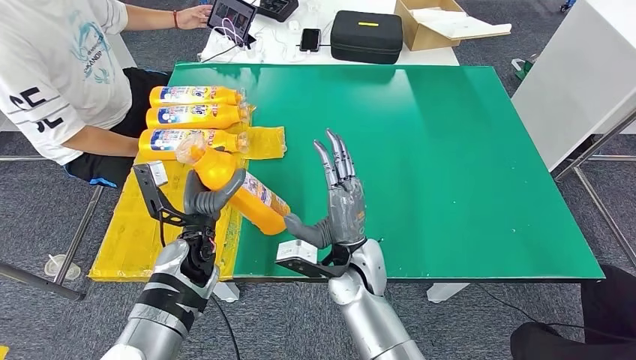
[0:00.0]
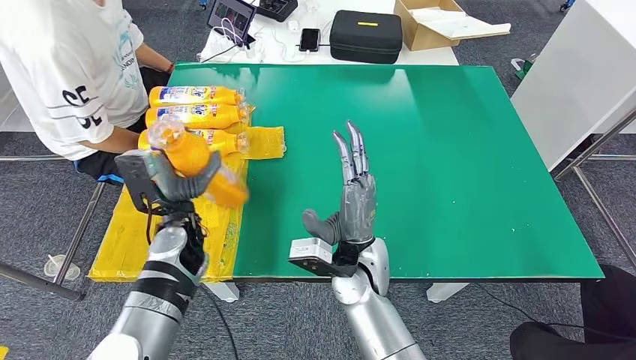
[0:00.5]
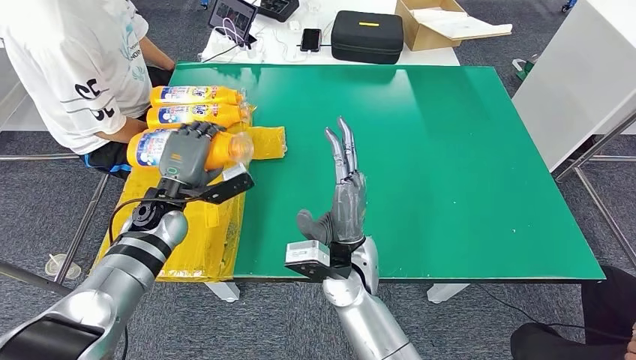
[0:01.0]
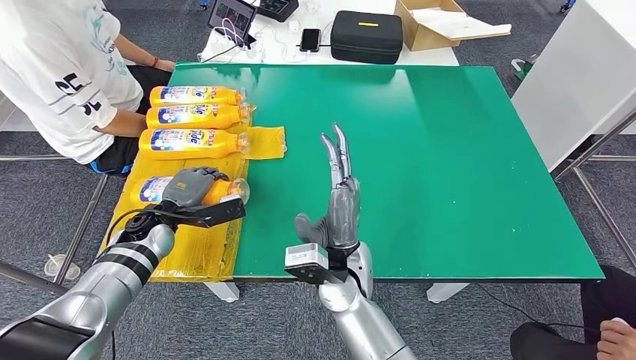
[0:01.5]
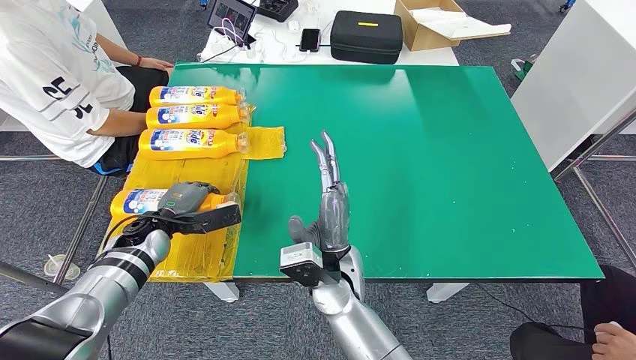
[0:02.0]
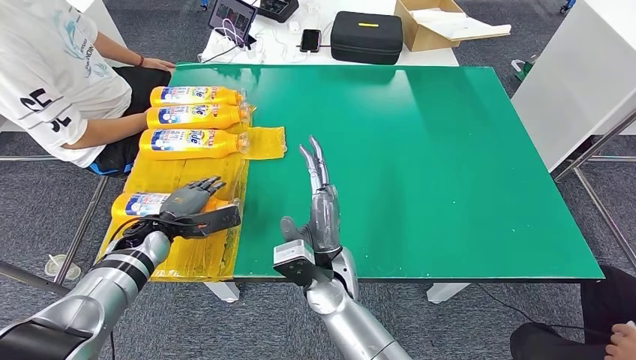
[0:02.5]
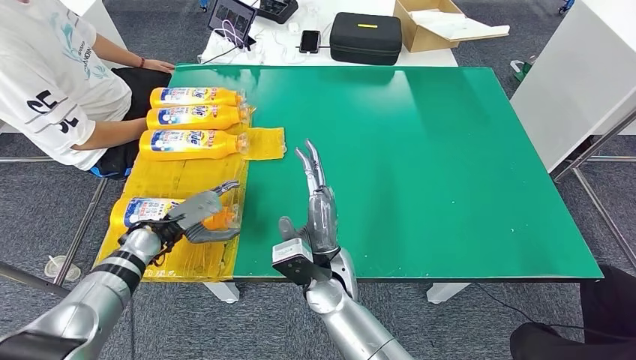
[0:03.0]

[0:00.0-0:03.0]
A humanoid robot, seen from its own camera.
Step, 0:00.0 to 0:03.0: Flip the fast-moving consumer goods bottle to the front side.
